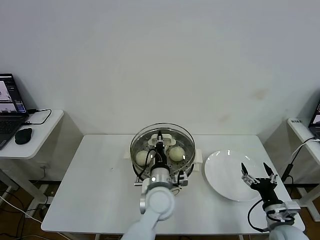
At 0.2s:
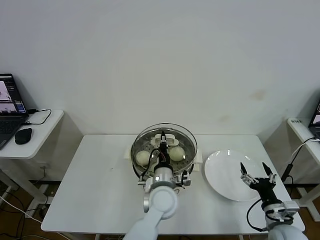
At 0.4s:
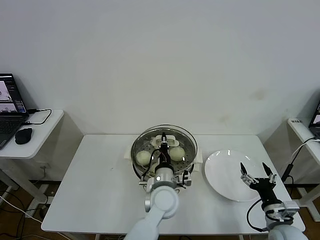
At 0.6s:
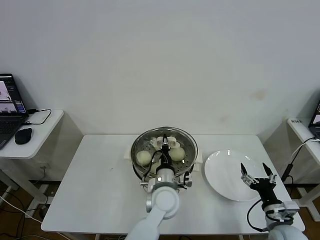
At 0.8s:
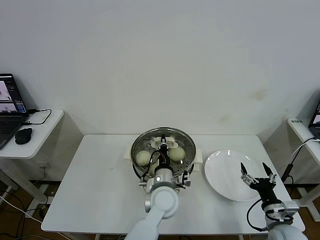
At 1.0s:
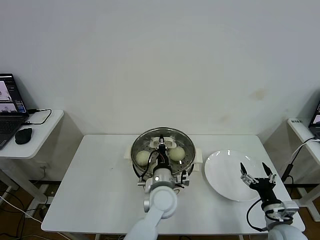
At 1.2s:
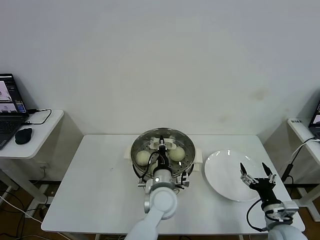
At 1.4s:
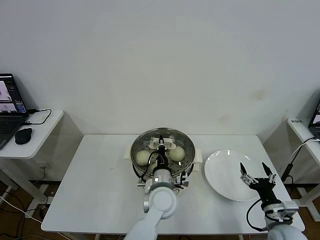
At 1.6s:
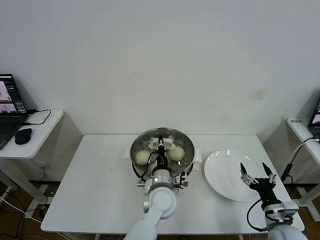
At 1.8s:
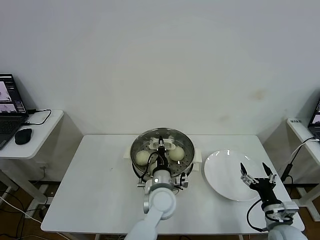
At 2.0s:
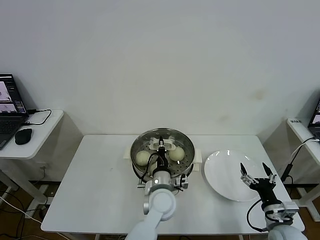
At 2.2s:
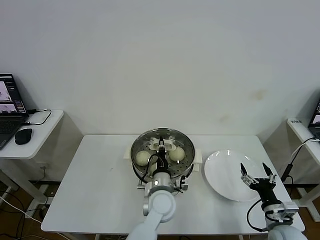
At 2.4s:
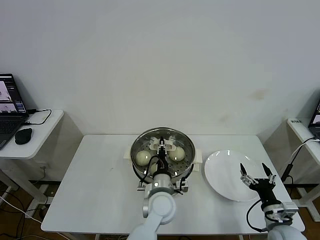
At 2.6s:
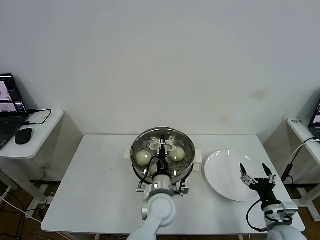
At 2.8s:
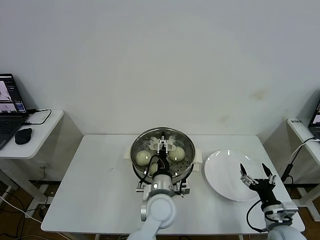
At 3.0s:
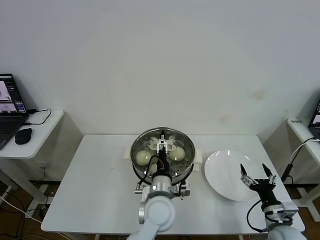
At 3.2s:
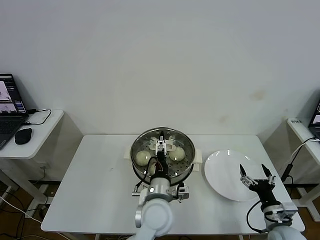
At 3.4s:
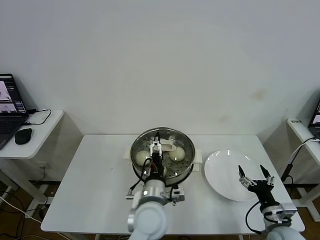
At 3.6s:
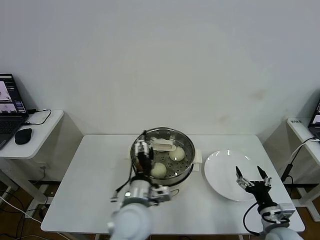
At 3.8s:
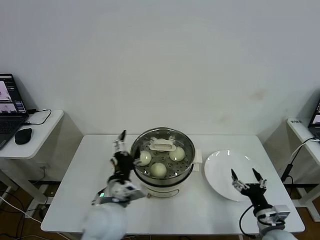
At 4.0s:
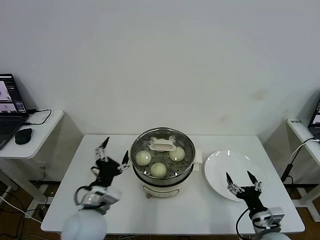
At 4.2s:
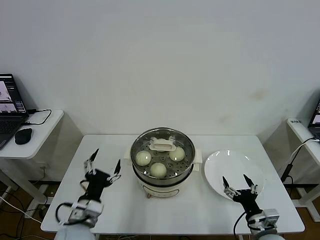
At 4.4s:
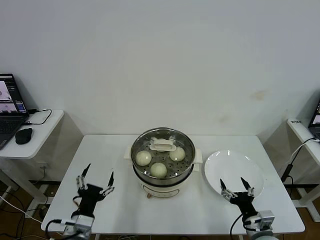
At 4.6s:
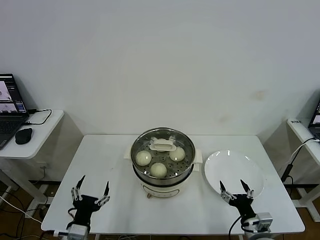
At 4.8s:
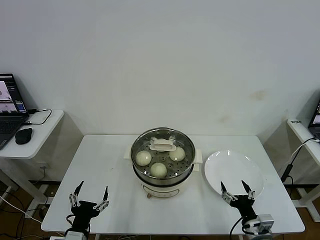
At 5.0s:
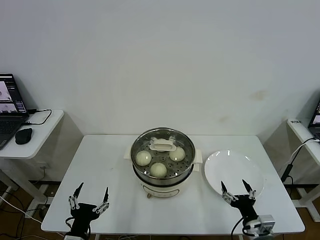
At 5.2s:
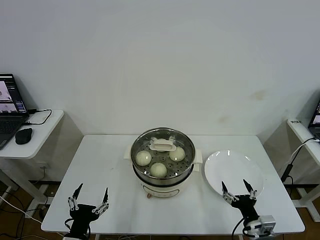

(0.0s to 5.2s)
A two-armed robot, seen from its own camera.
Step, 0.0s - 2.6s: Place the pot lid on the steamer with left gripper.
0.0s - 1.8s: There are only small adjustments of the grippers.
1.8s - 3.4s: The left gripper goes about 5 cm backward, and opens up.
3.4s - 5.2s: The left gripper moves to the left and backward, roughly 25 cm; the right gripper travels to the left by some 5 cm.

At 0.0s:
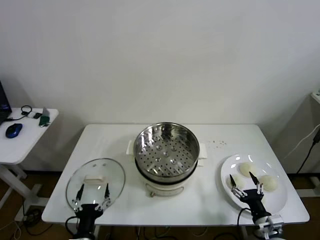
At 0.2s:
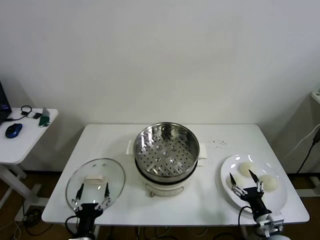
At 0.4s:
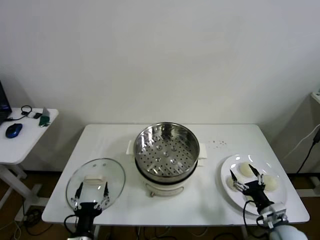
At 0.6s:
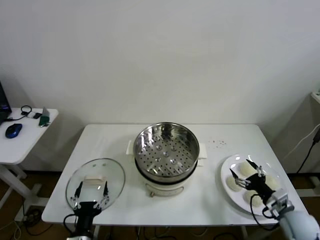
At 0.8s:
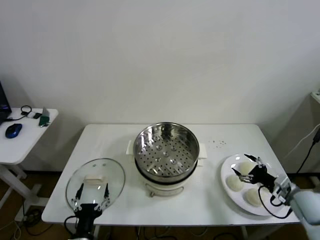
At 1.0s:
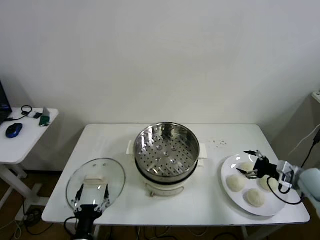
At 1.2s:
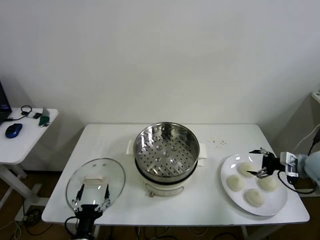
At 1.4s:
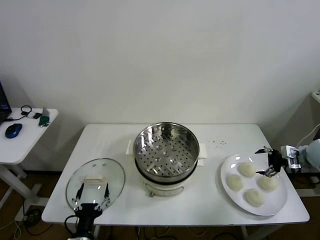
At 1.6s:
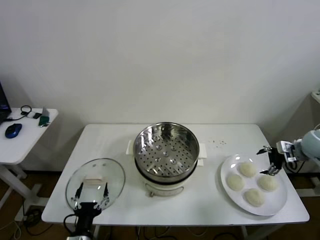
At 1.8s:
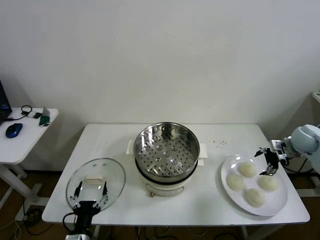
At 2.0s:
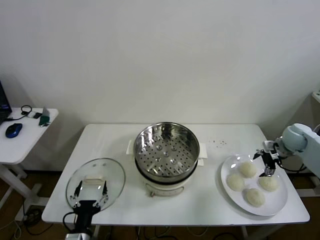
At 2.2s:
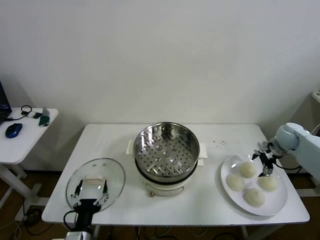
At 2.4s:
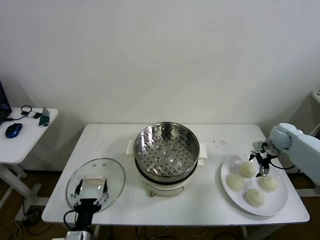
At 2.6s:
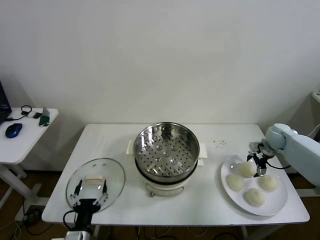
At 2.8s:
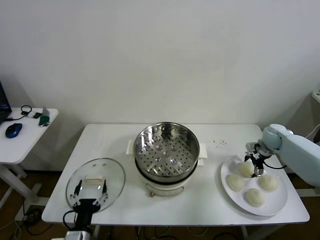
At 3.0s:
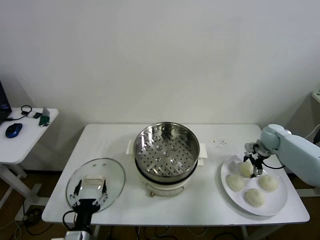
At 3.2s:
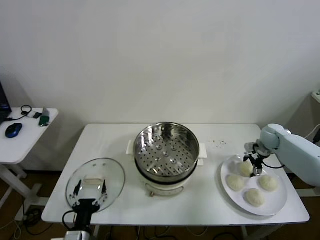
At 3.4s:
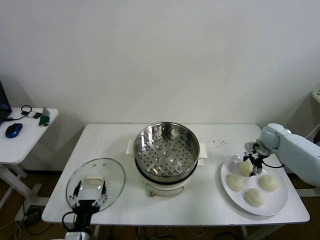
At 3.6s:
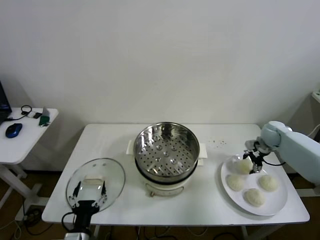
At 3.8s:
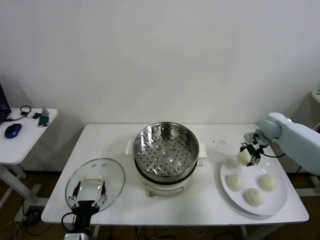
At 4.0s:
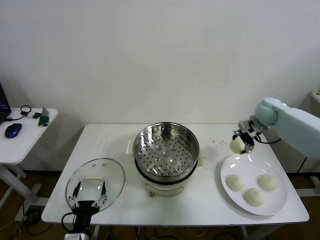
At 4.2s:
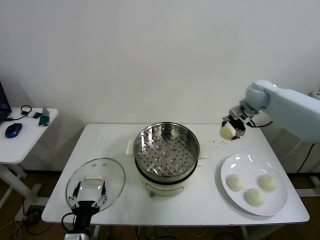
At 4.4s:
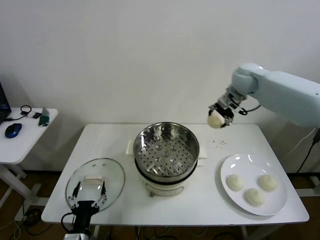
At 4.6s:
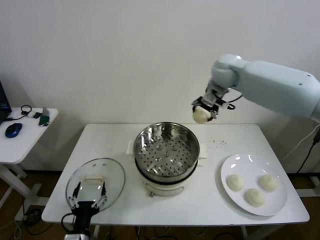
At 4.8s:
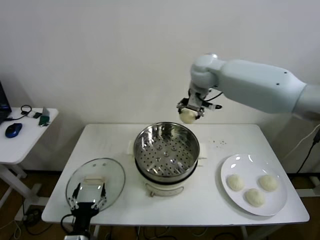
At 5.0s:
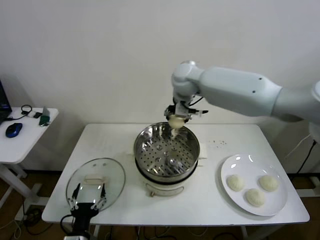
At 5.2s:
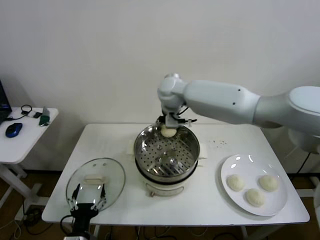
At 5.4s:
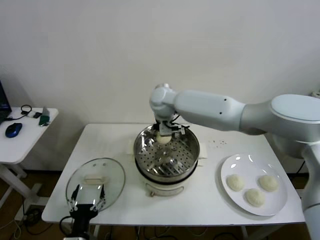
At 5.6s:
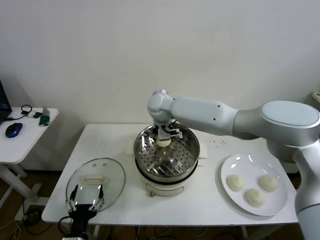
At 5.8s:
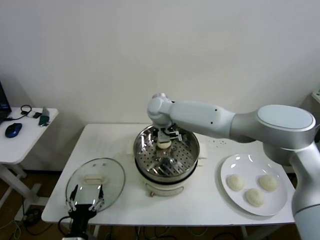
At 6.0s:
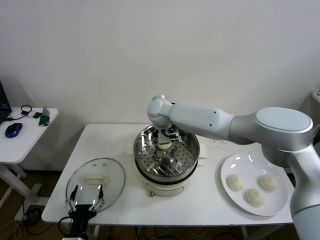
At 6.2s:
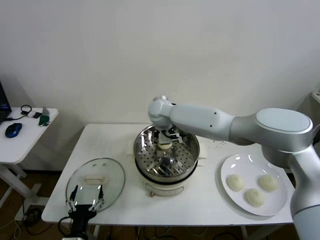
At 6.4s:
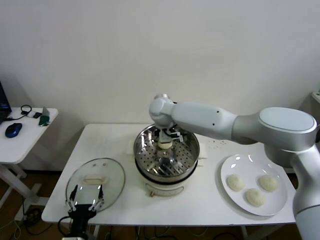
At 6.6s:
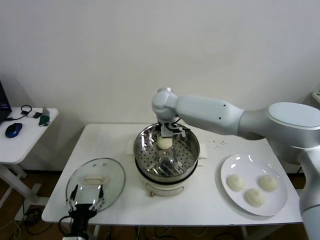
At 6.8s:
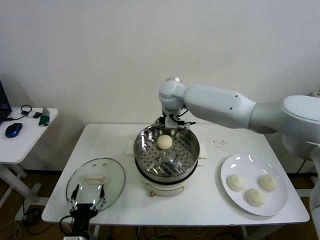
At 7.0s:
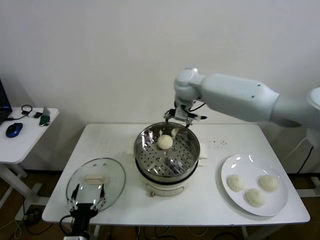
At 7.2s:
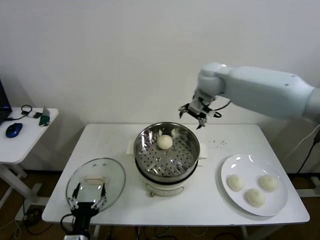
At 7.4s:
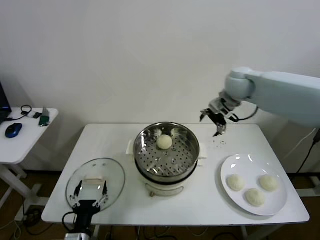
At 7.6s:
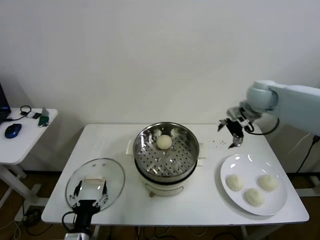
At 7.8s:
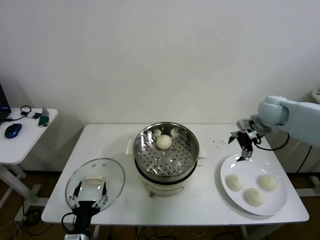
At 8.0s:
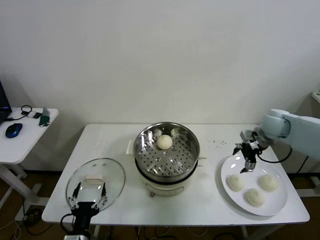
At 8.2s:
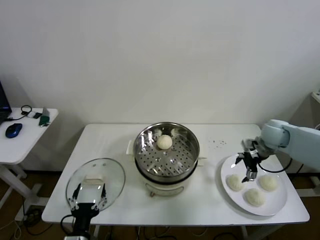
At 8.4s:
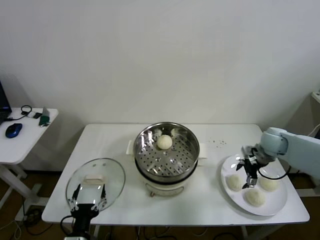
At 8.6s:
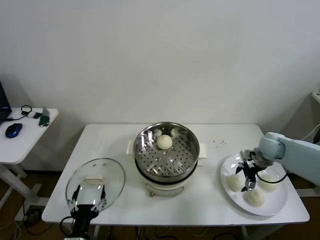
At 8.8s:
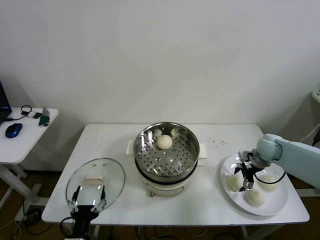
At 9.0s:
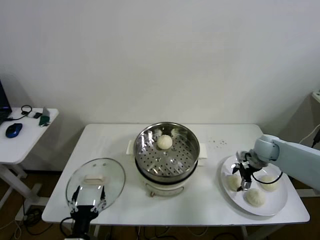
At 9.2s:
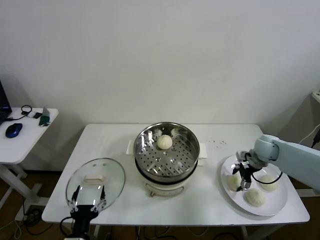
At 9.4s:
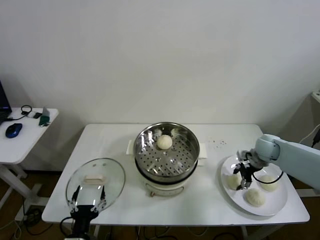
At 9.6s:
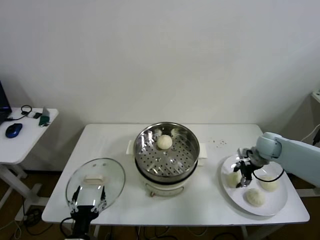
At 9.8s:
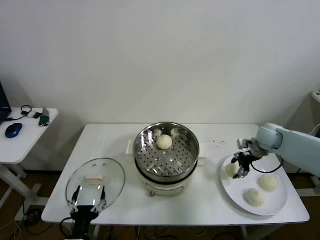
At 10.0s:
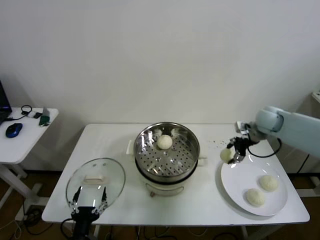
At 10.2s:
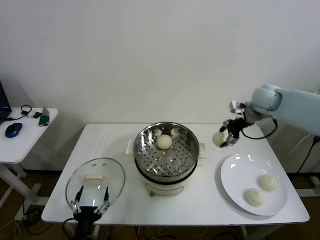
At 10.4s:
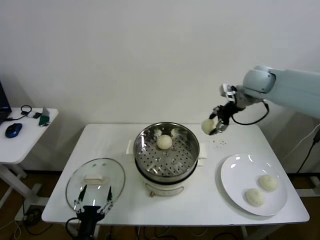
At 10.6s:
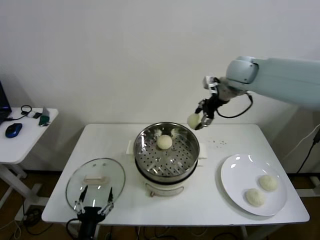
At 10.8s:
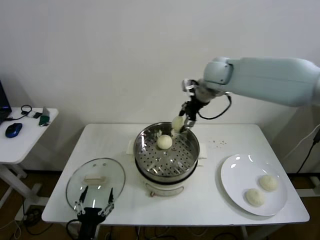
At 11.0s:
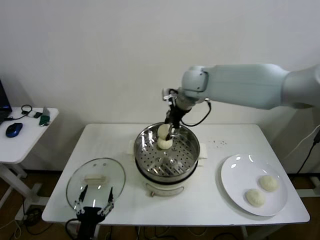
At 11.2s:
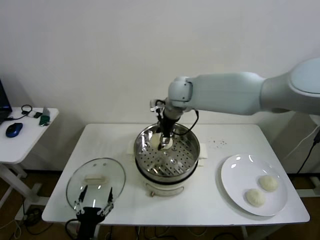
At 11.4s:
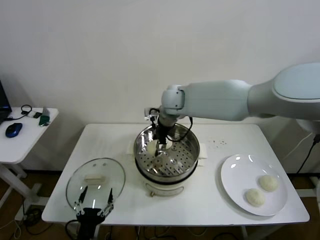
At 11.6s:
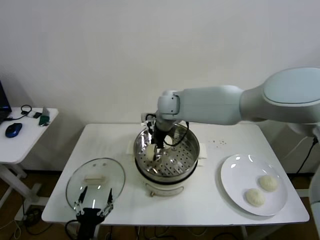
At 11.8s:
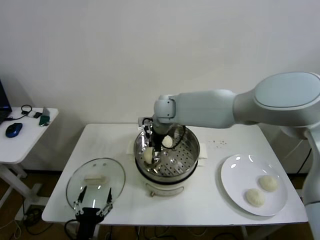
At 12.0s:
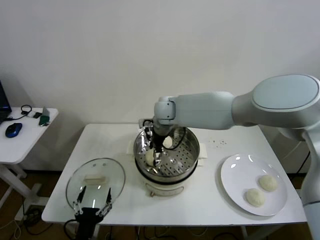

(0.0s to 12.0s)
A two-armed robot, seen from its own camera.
Step, 0.0s - 3.2s: Grasp the baozi in the plate with right gripper.
Step, 3.6s - 6.2s: Place the baozi on the steamer with right gripper.
Step, 6.6s - 9.4s: Grasp the baozi in the plate with right gripper.
1.6s - 3.0s: The right gripper heads forward, downward and to the left, covering some 10 cm.
3.0s - 4.4s: The right gripper is displaced upward and to the left by about 35 cm, and closes up.
4.4s - 6.0s: The right gripper goes roughly 25 cm to the left and downward.
6.0s - 7.6s: The right gripper goes approximately 35 cm to the right, and opens its fingers.
7.6s - 9.0s: The right gripper heads downward, covering about 20 cm.
9.0s - 10.4s: The right gripper moves upward and to the left, about 30 cm, and closes.
10.4s - 12.0s: The right gripper moves to the left and downward, some 30 cm, and opens.

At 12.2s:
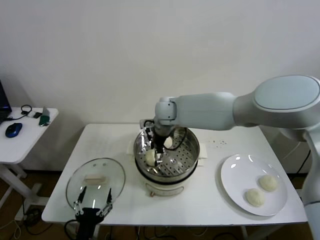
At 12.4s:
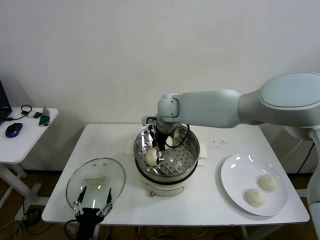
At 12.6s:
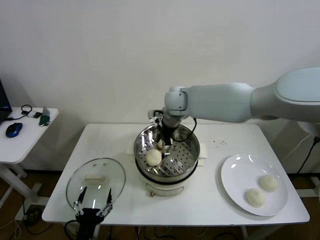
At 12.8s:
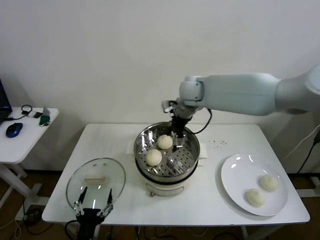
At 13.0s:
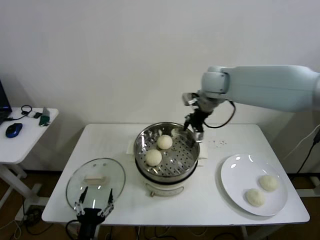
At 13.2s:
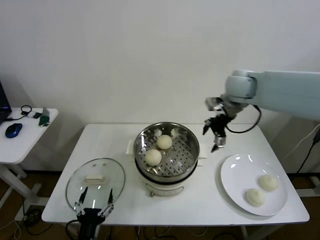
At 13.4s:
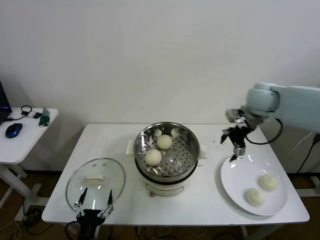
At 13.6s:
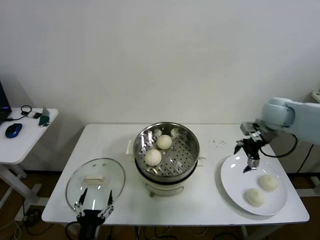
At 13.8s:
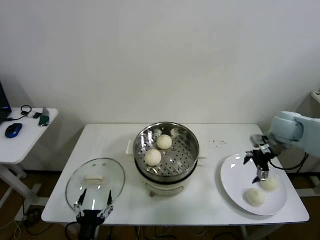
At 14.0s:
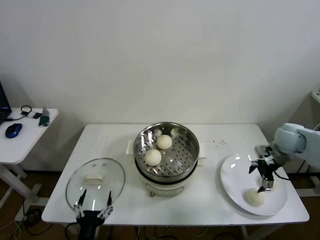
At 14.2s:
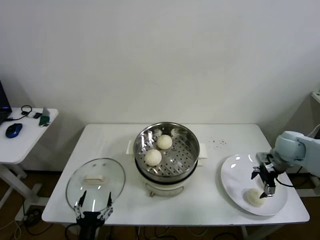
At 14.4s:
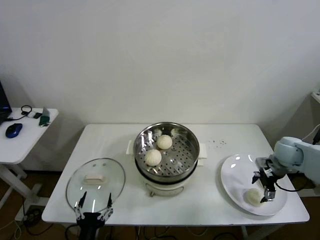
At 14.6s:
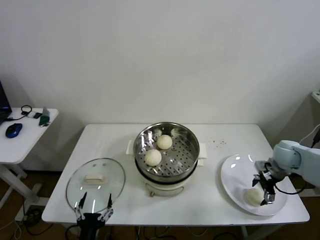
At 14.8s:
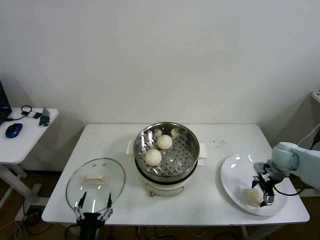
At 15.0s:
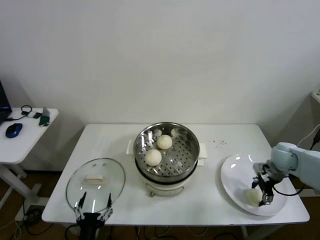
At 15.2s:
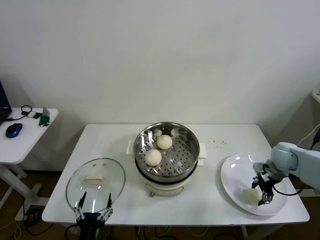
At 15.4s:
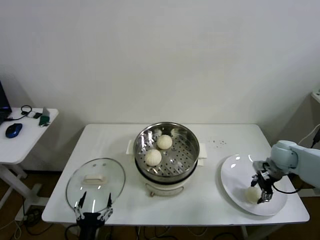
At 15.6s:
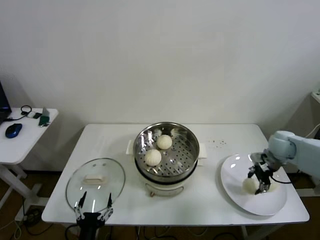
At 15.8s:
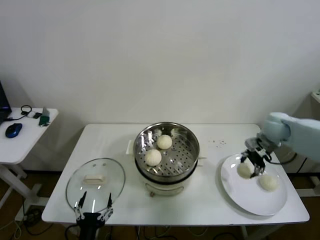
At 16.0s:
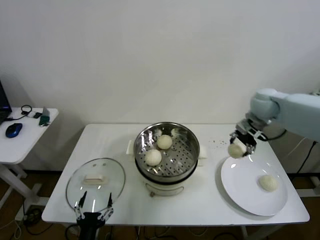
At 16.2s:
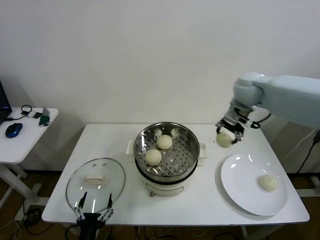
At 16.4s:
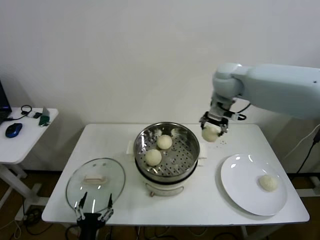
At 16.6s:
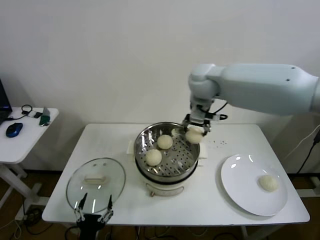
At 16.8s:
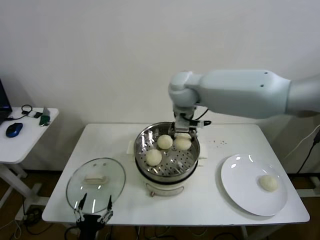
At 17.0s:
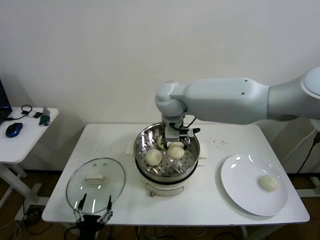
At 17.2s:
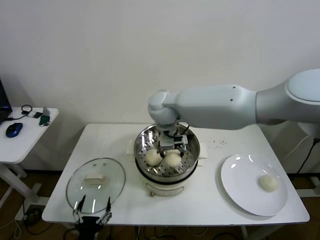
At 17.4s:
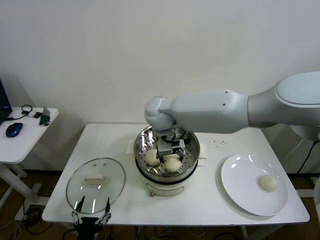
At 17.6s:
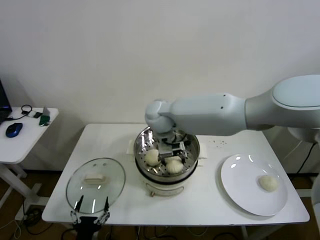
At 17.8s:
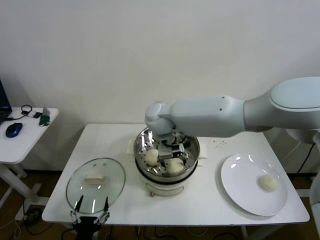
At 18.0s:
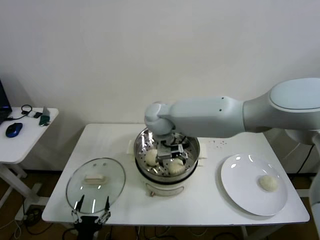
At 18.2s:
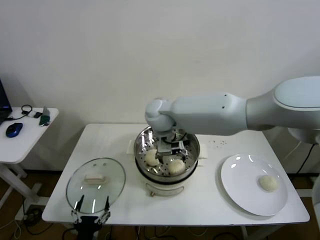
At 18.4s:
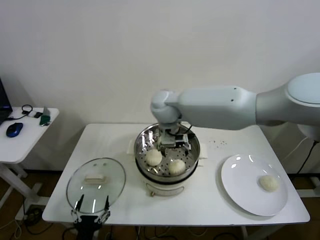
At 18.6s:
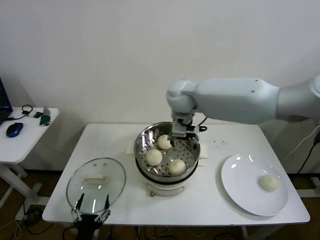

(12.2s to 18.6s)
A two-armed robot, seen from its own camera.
Step, 12.4s - 15.0s: Grasp the baozi in the plate with right gripper.
Step, 15.2s - 17.8s: Place the baozi on the steamer with right gripper.
12.2s - 13.8s: The right gripper shifts about 40 cm to the right.
13.8s - 15.4s: The right gripper shifts some 10 cm downward, and closes up.
15.4s - 17.0s: The right gripper heads to the left and upward, covering roughly 50 cm.
17.0s - 18.6s: The right gripper moves to the right, about 5 cm, and opens its fingers.
